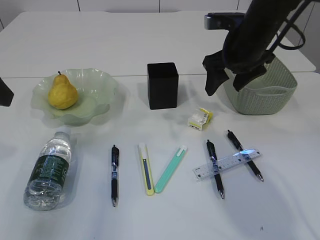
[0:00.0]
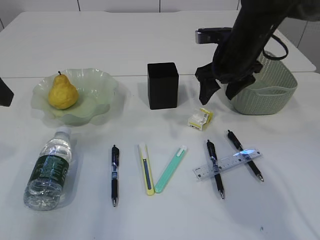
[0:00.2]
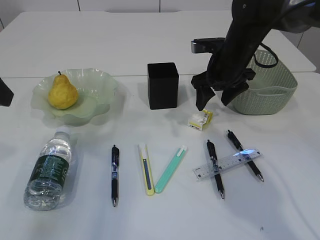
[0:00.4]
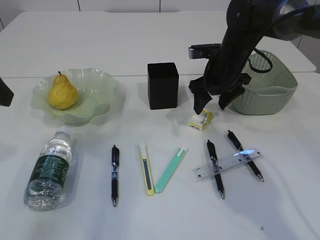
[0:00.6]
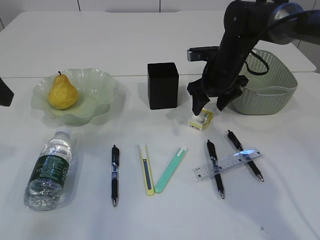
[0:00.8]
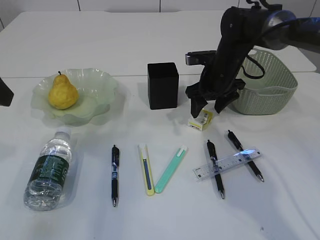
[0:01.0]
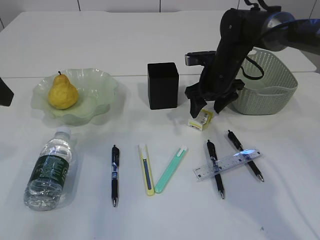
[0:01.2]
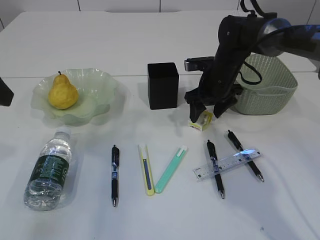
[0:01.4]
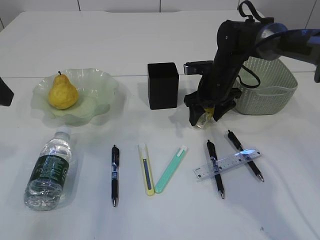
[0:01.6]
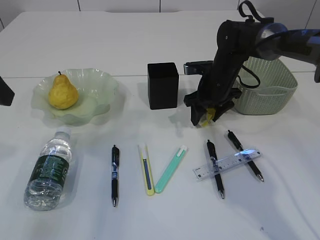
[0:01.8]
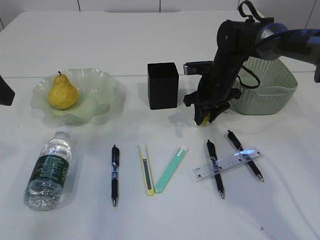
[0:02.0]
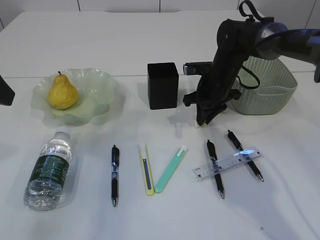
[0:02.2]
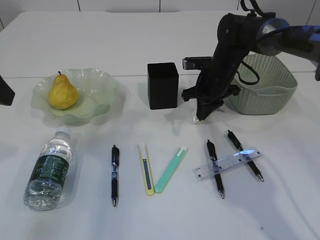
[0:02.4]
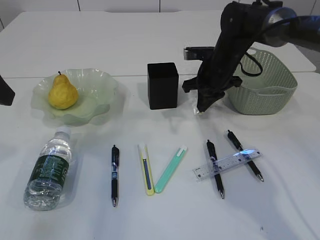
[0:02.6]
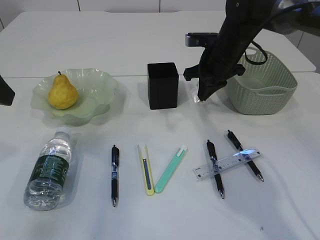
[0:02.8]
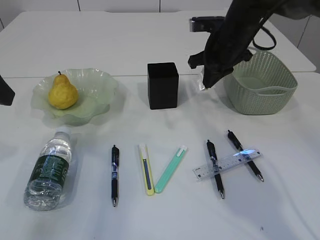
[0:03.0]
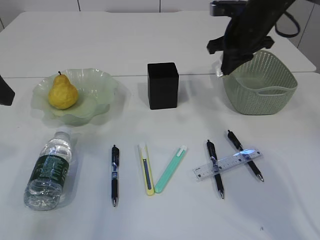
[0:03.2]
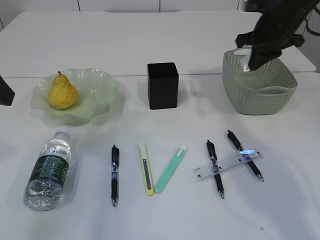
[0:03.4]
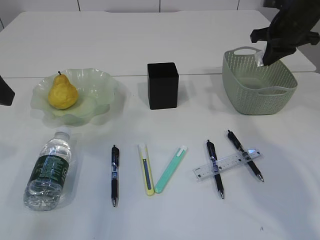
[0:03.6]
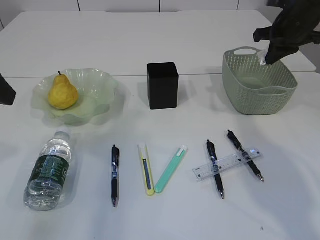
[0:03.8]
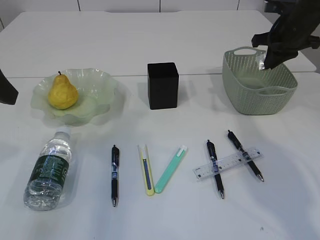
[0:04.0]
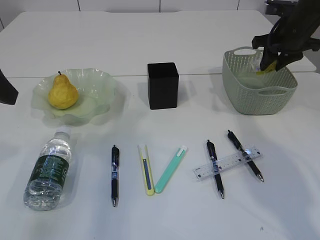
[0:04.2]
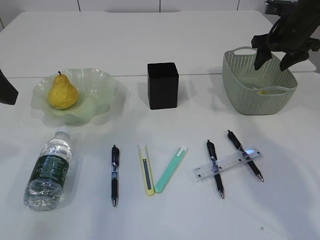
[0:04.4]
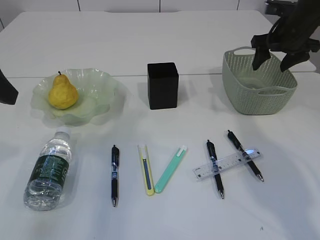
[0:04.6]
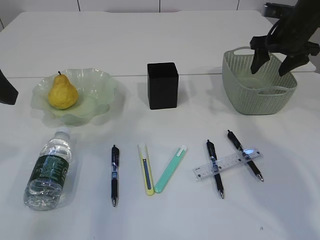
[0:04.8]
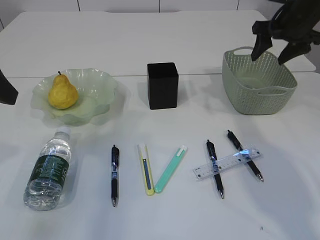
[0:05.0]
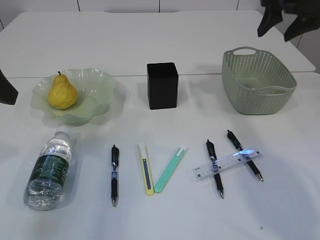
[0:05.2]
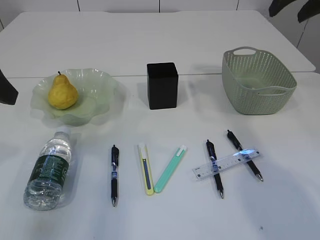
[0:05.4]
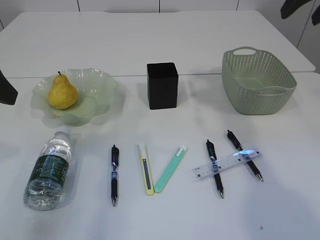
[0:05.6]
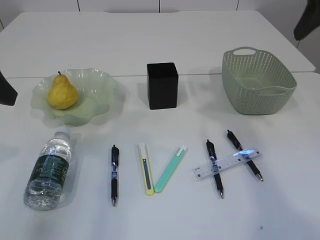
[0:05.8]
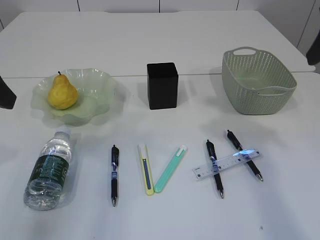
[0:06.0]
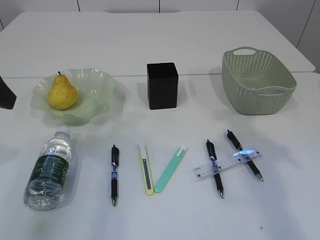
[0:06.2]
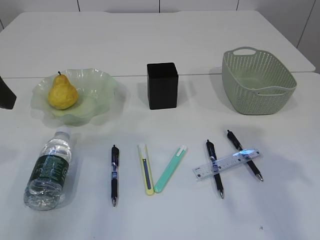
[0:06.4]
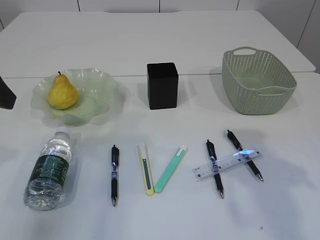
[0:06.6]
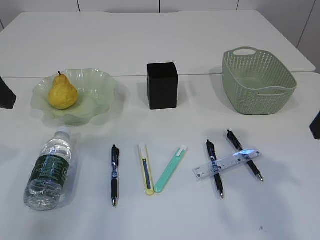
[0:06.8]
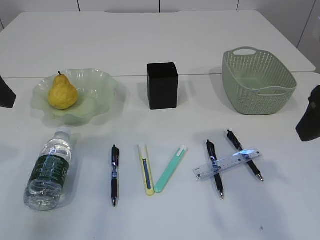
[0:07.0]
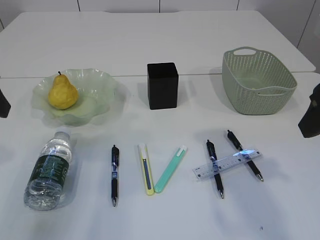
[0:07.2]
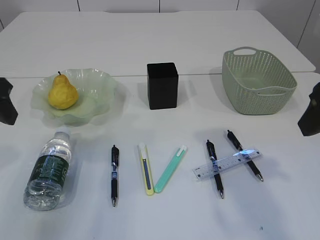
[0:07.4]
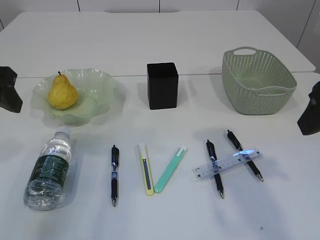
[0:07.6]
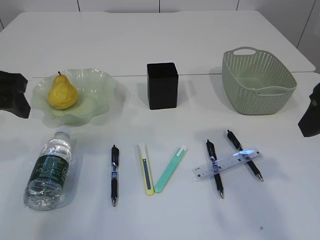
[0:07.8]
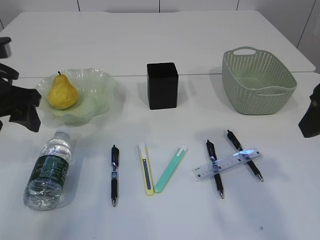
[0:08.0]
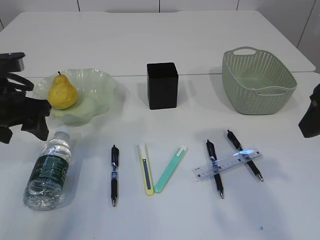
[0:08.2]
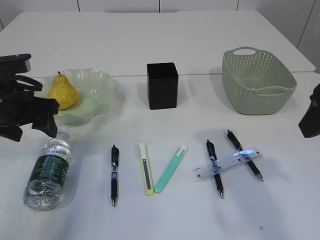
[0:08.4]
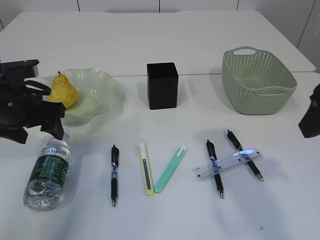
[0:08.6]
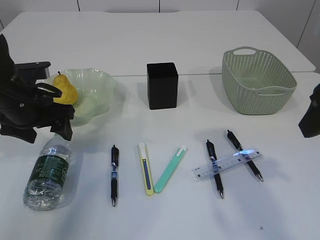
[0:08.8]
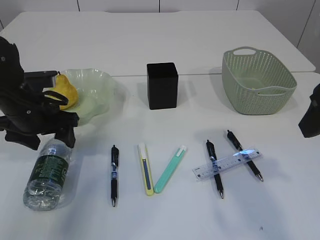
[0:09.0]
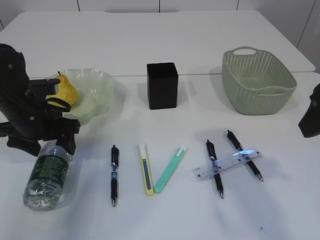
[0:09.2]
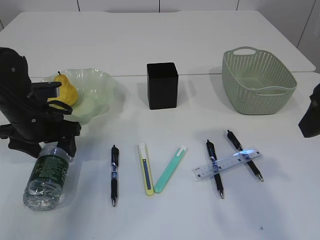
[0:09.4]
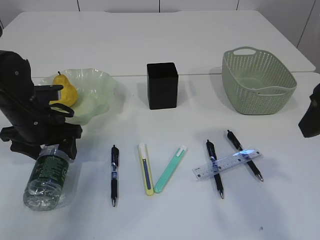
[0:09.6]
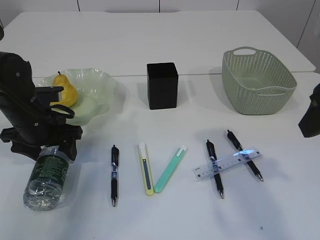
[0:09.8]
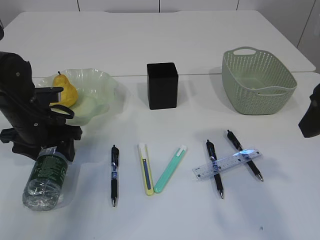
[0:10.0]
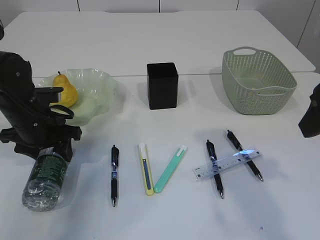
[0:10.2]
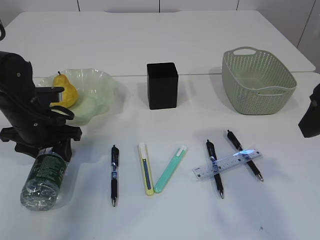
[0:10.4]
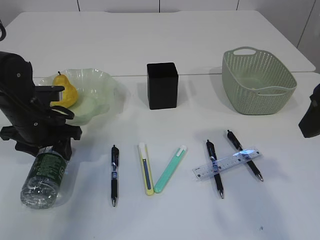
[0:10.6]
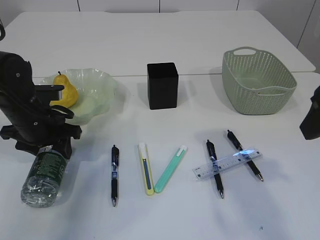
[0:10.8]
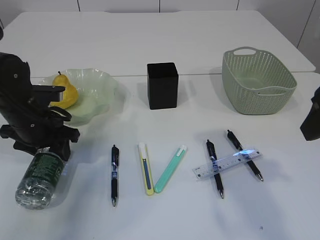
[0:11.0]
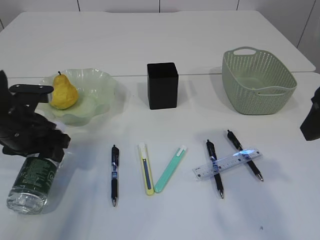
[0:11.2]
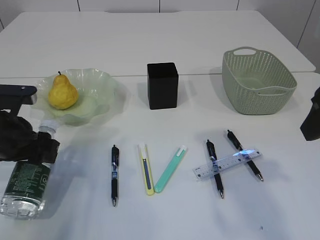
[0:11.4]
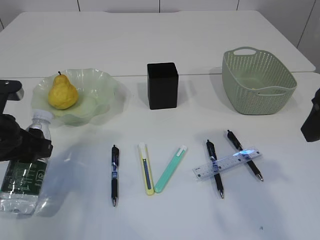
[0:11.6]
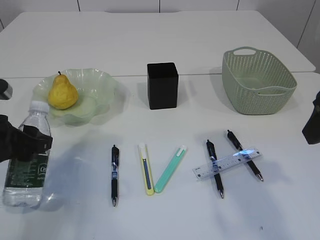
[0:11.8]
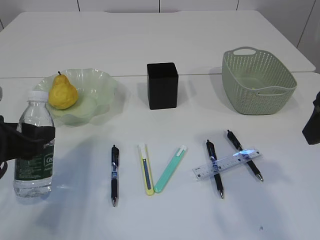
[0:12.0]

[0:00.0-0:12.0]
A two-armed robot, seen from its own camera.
Step, 0:00.0 to 0:02.8: Pick up the plastic.
Step, 0:03.0 to 0:04.4: Place the plastic in the basket.
0:00.0 to 0:01.6: The right gripper shifts about 15 cm downward and forward.
0:01.6 to 0:03.0: The right gripper shifts some 10 cm upward, and closes up.
0:03.0 to 0:04.4: The right gripper heads to the right, covering approximately 15 cm, and opens its fingers.
0:04.4 to 0:06.0: The right gripper shifts about 25 cm backward and upward.
0:06.0 to 0:07.6: The right gripper is displaced backward by some 5 cm.
0:07.6 to 0:09.0: The left gripper heads downward and forward, covering about 15 cm.
0:09.0 to 0:10.4: The grippers stay close to where they were, moving slightly.
0:10.4 to 0:12.0: The left gripper shifts roughly 10 cm backward.

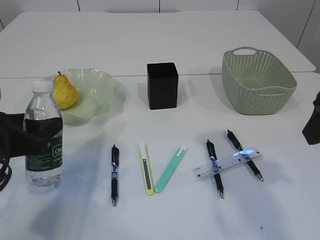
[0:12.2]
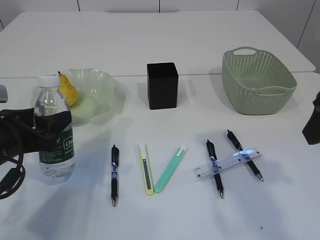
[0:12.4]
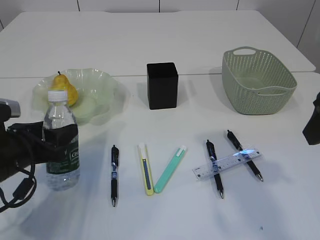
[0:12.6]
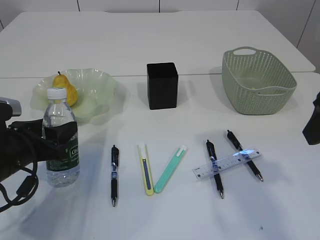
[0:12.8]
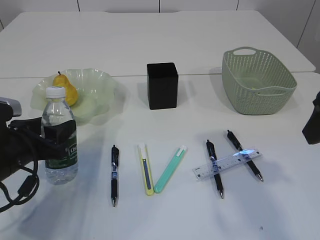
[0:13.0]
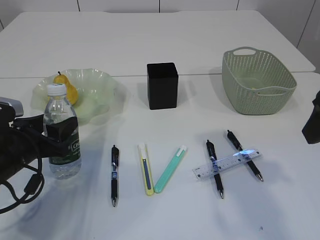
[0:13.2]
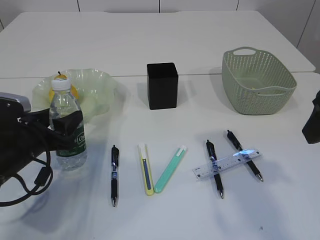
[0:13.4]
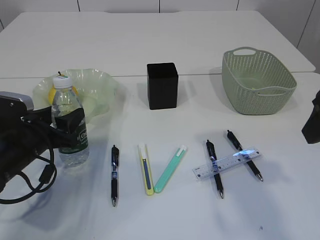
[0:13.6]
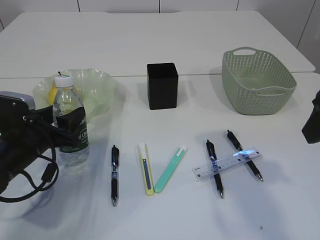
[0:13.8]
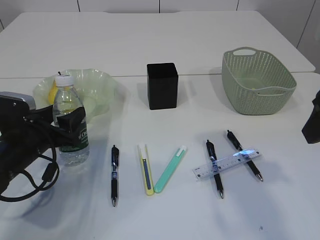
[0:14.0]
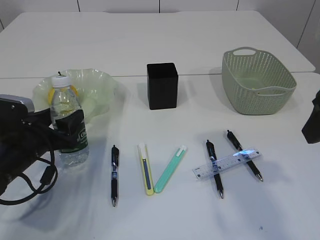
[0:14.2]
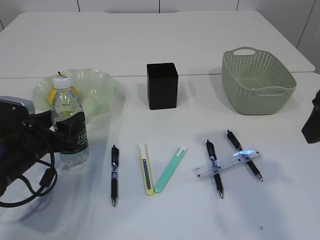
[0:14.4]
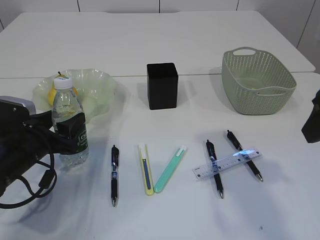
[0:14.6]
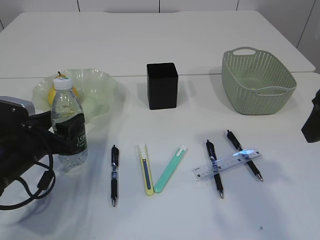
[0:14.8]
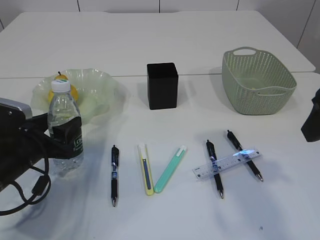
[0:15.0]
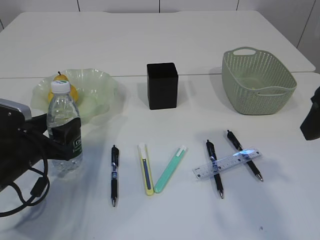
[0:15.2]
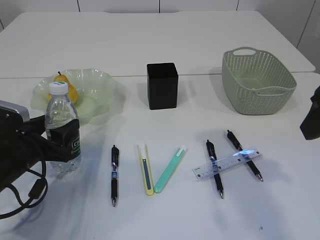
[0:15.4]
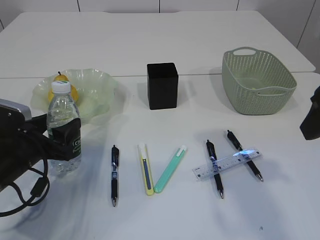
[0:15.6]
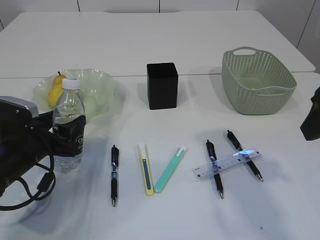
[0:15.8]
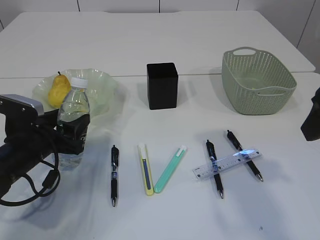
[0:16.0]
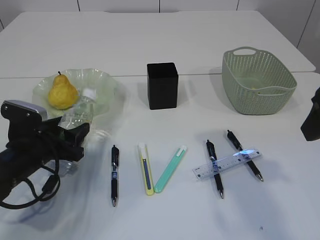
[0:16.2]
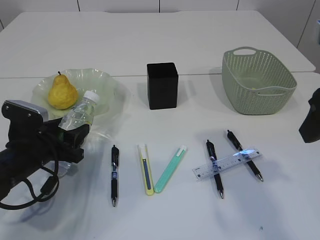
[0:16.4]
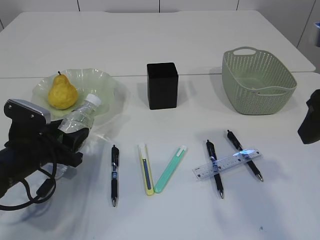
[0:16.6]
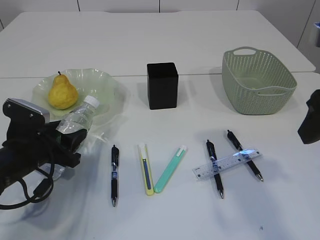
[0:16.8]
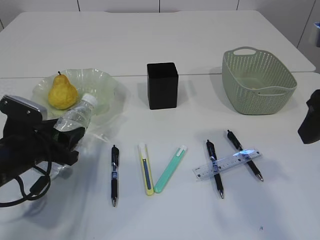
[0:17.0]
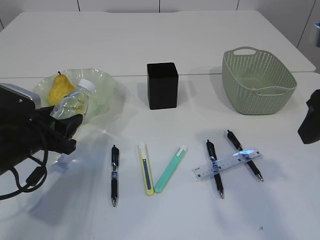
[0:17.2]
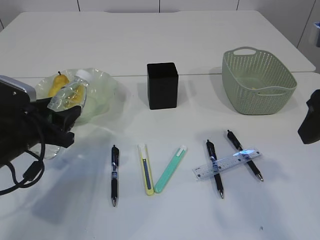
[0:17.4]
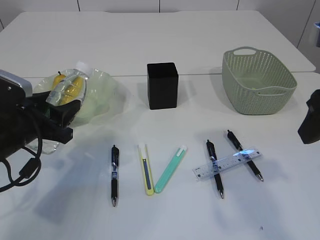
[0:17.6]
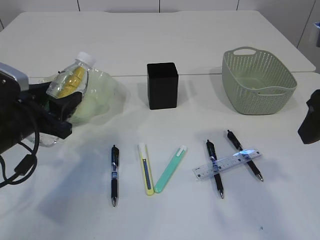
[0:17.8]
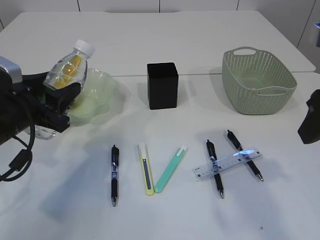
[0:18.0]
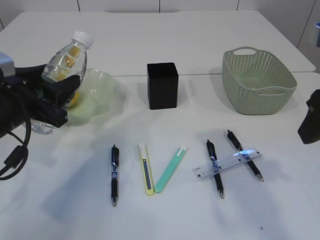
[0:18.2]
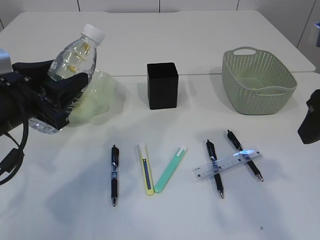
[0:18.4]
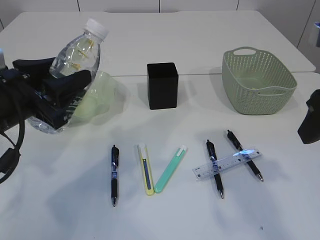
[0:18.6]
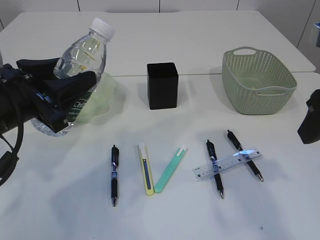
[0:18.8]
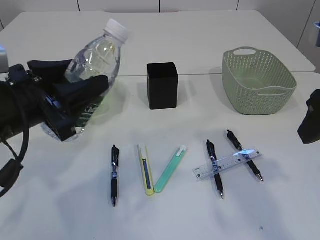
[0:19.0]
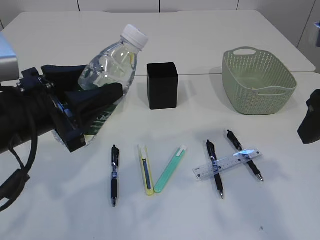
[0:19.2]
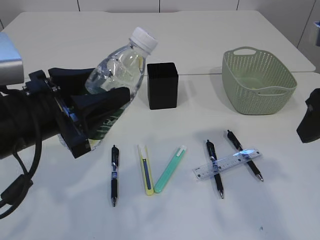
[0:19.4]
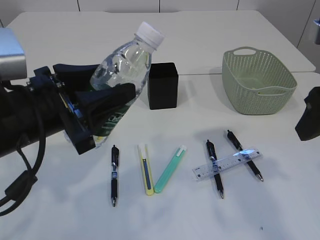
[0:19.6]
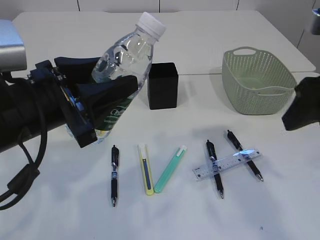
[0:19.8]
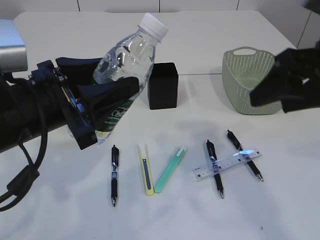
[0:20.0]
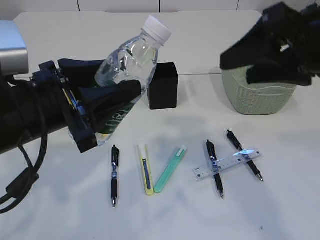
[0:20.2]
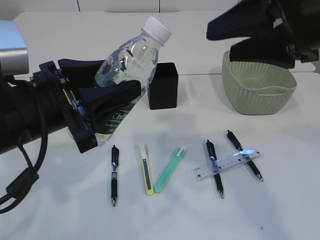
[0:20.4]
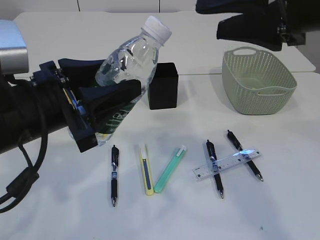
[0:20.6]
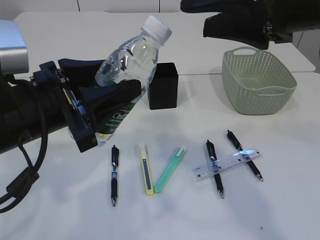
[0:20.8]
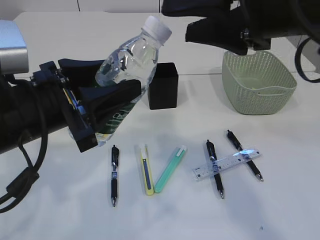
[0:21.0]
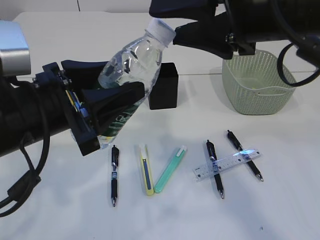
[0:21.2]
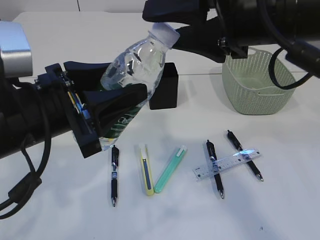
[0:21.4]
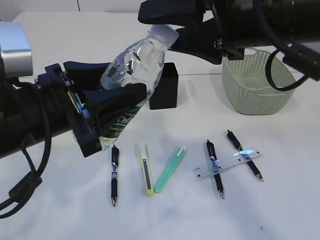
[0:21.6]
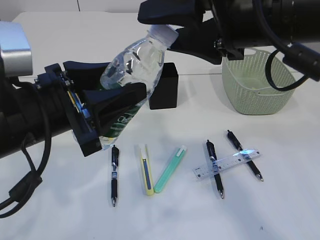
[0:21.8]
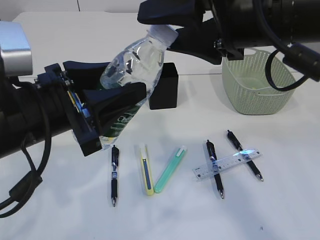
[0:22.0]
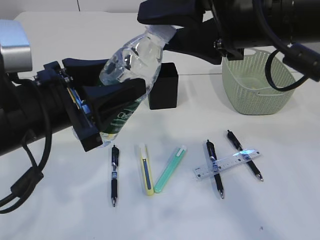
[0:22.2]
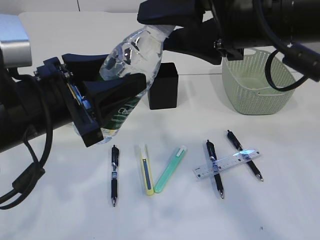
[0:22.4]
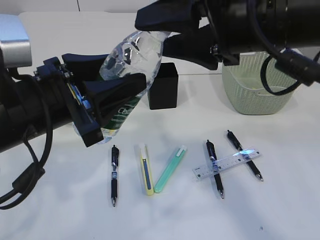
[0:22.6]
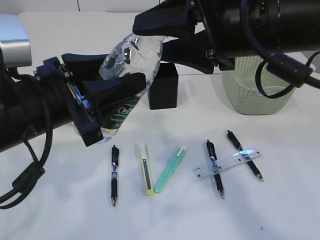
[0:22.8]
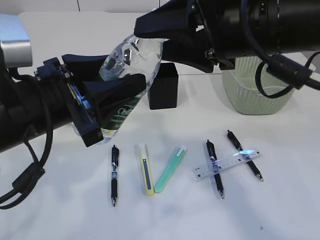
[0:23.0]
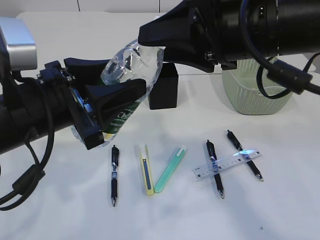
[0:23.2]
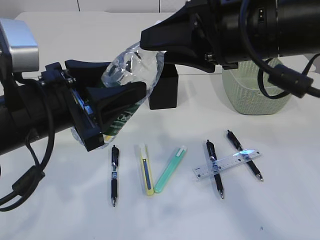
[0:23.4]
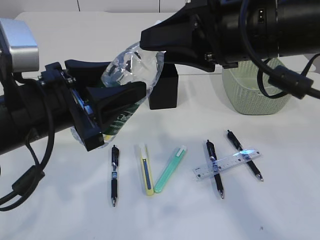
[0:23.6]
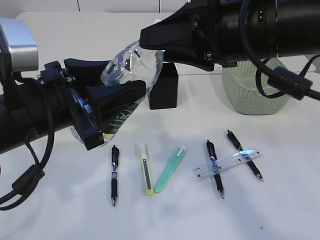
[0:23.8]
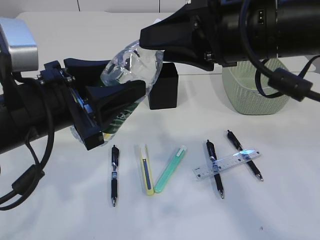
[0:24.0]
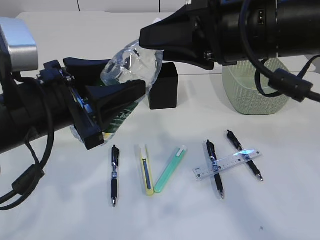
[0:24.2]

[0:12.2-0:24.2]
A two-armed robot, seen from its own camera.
Step, 0:12.2 to 0:17.8: Pick up the bottle with the left arm.
0:12.2 to 0:13.8: The left gripper moves downward, roughly 10 cm.
0:13.8 to 0:16.6: The grippers move only a little.
0:16.6 to 0:18.2: The left gripper shifts roughly 10 cm upward.
0:18.2 to 0:19.8: The left gripper moves to the right, roughly 5 cm.
0:19.8 to 0:21.2: The right gripper shifts about 10 cm to the left.
0:21.2 to 0:22.6: The grippers stay close to where they were, moving slightly.
0:22.6 to 0:24.2: The right gripper closes its fingers.
